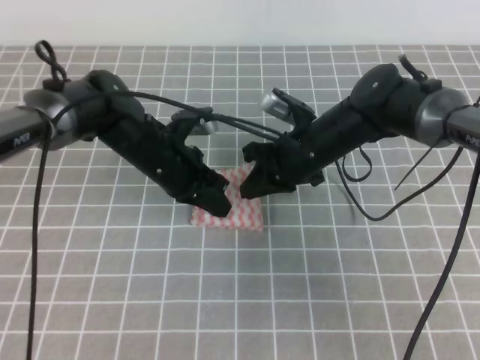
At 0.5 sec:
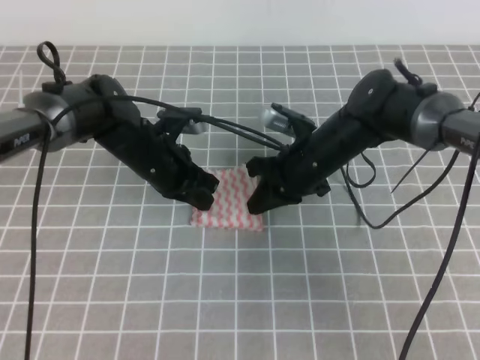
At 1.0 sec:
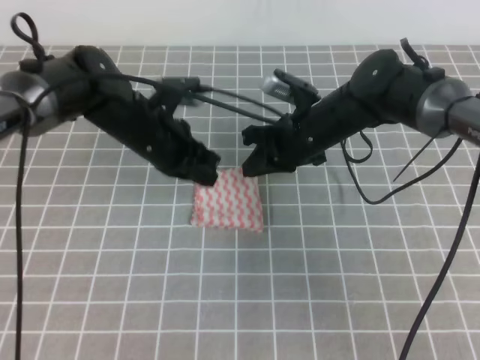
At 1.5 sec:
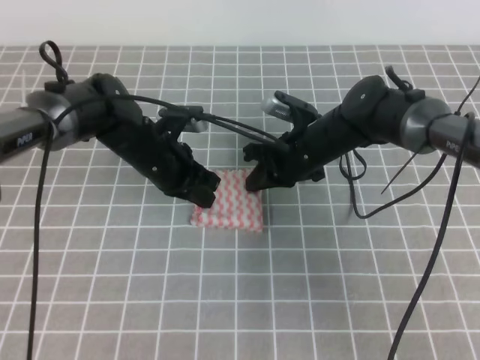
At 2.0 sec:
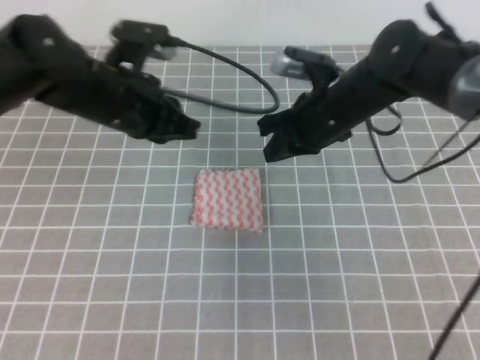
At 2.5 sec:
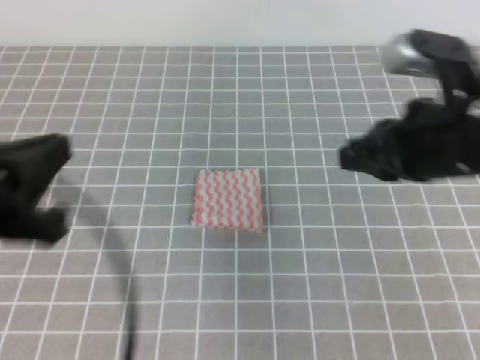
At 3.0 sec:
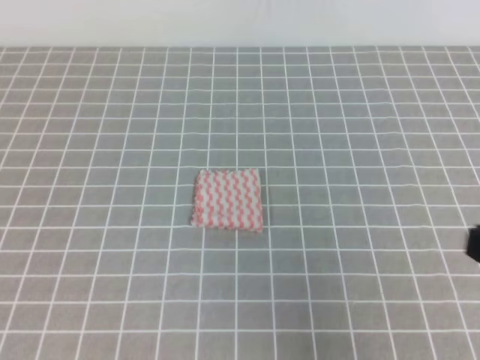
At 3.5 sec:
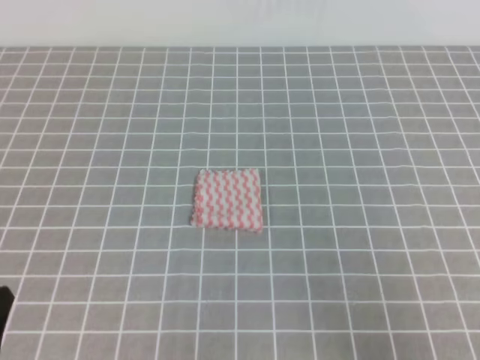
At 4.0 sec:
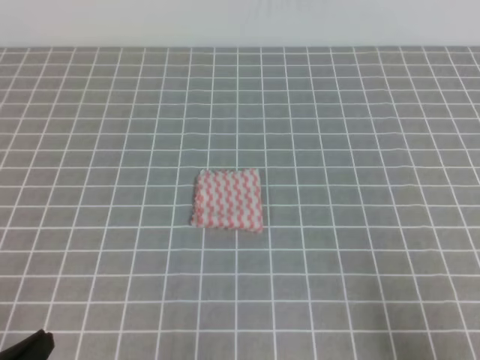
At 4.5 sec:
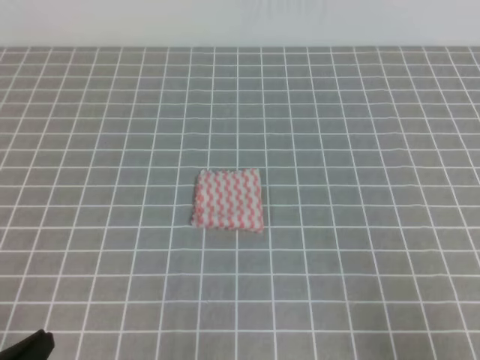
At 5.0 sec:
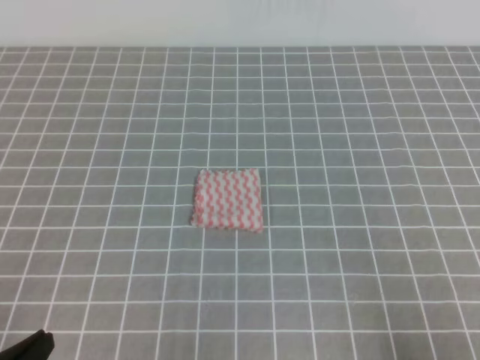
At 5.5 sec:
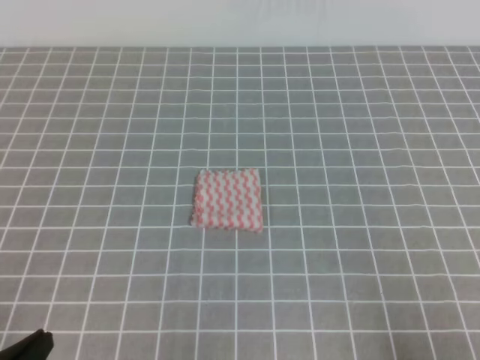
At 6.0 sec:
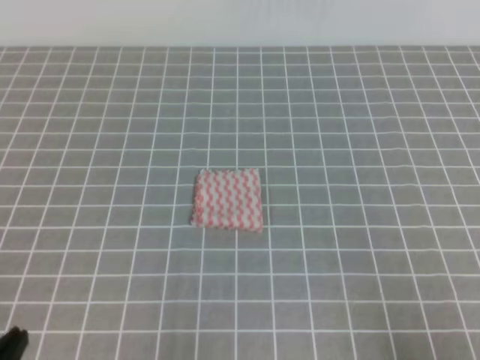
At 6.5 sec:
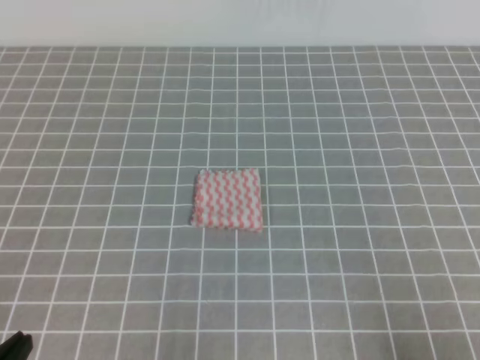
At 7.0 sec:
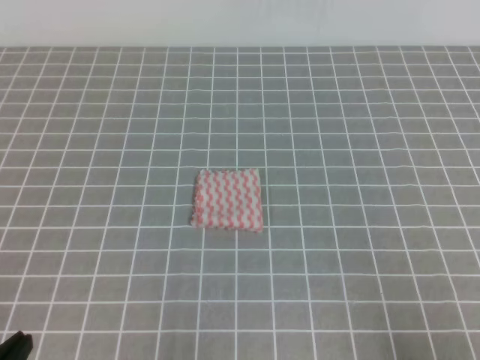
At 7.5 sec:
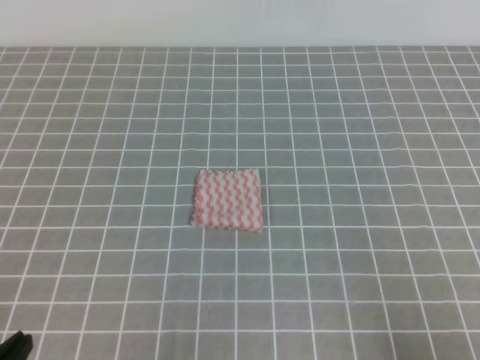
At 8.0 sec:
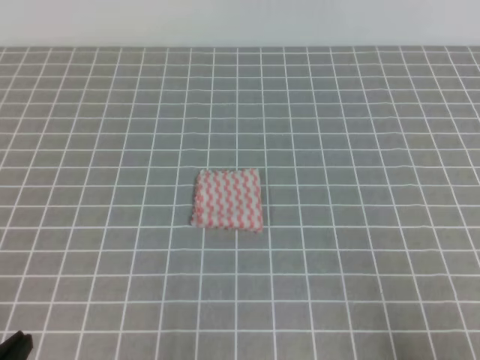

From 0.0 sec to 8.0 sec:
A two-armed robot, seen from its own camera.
Step, from 0.0 sec to 8.0 sec: Fold the towel.
From 0.0 sec to 2.0 sec: The right gripper moves upward, roughly 5 cm, while the left gripper heads upward, covering approximately 10 cm.
From 2.0 sec to 4.0 sec: The right gripper travels backward and to the right by approximately 40 cm, while the left gripper goes about 30 cm backward.
From 6.0 sec to 8.0 sec: Both grippers stay about where they are.
